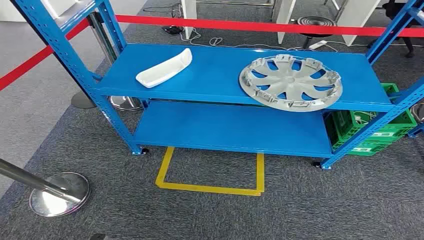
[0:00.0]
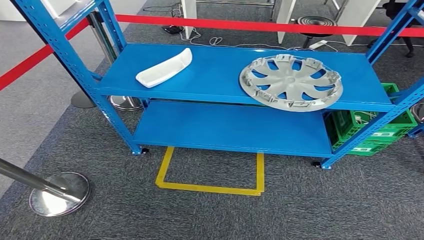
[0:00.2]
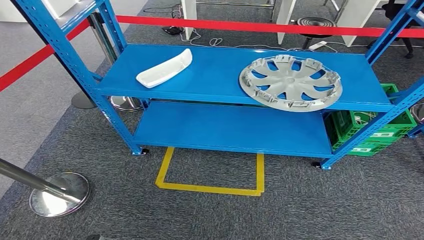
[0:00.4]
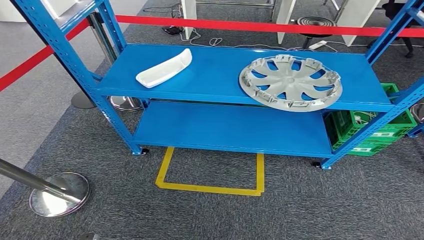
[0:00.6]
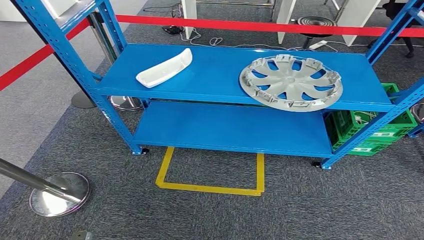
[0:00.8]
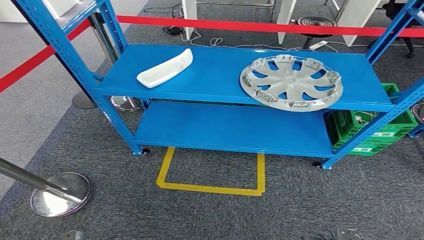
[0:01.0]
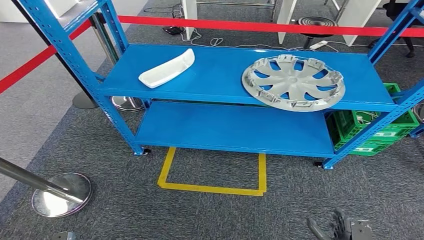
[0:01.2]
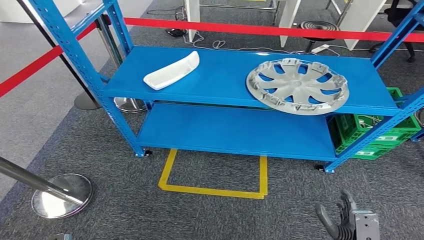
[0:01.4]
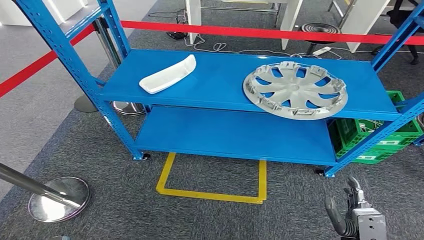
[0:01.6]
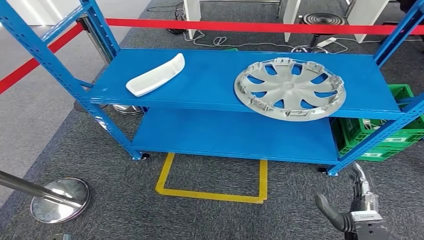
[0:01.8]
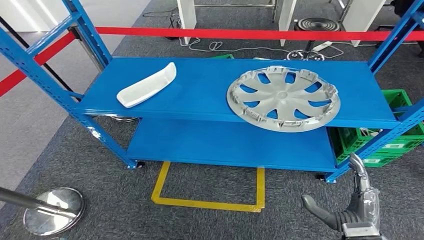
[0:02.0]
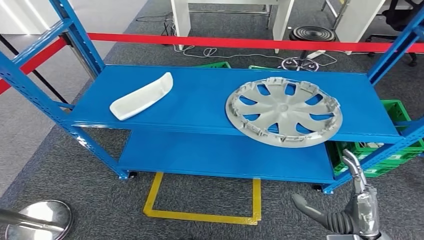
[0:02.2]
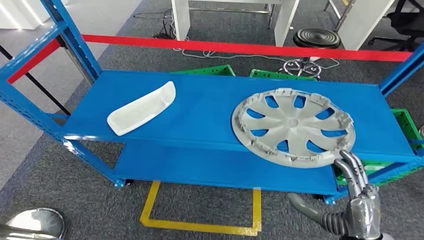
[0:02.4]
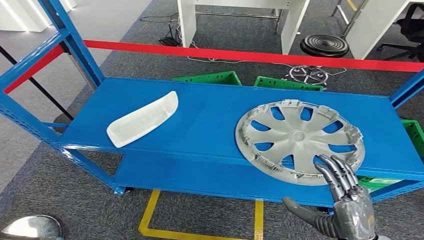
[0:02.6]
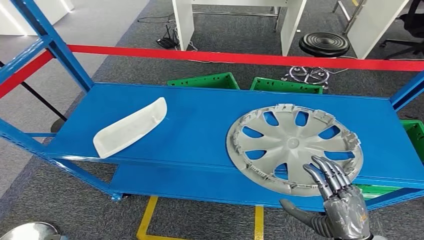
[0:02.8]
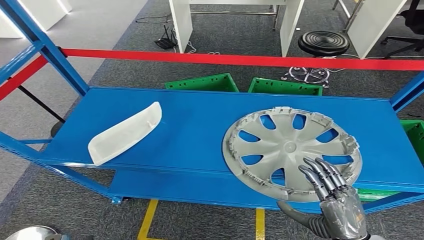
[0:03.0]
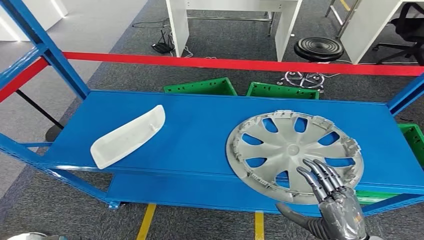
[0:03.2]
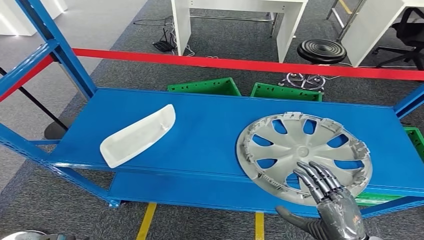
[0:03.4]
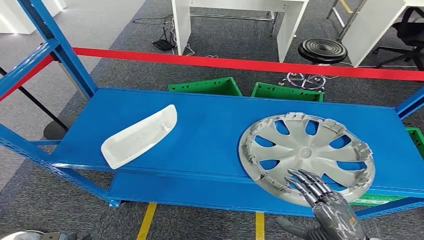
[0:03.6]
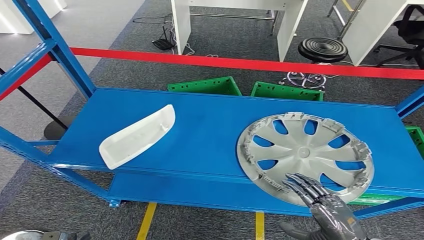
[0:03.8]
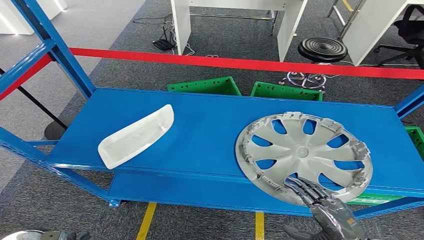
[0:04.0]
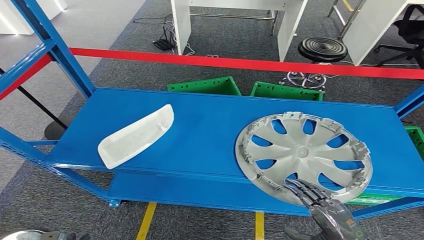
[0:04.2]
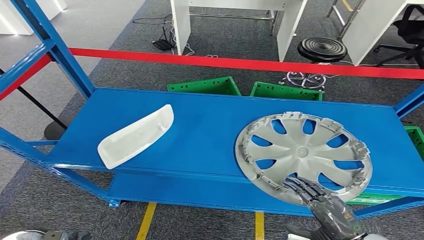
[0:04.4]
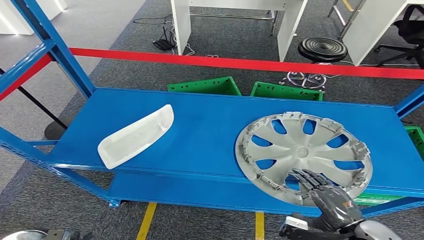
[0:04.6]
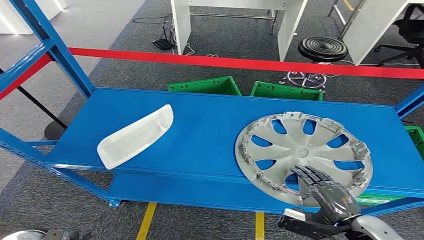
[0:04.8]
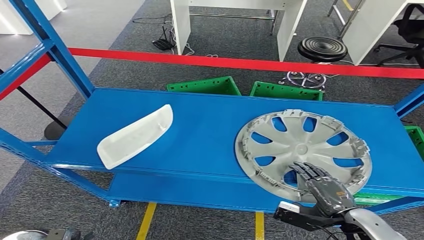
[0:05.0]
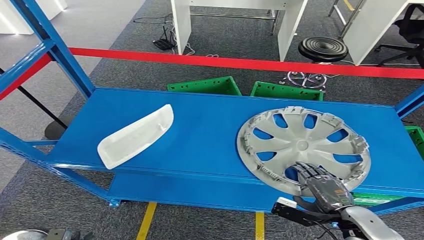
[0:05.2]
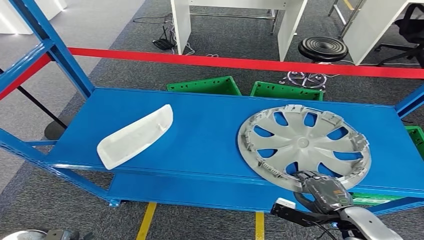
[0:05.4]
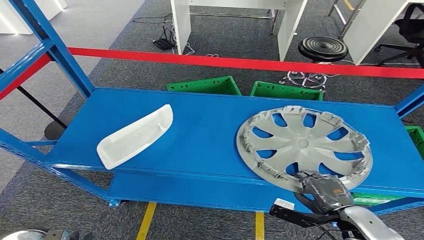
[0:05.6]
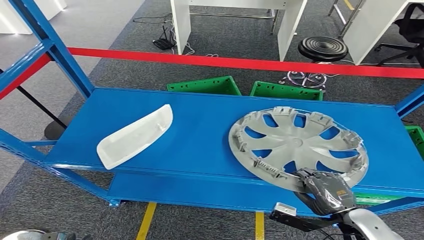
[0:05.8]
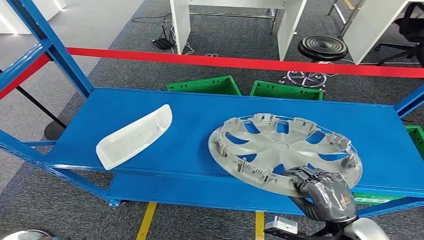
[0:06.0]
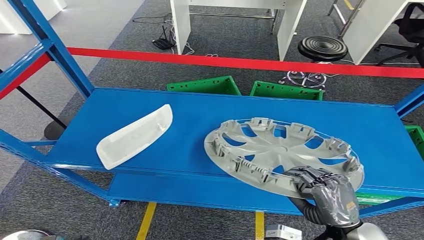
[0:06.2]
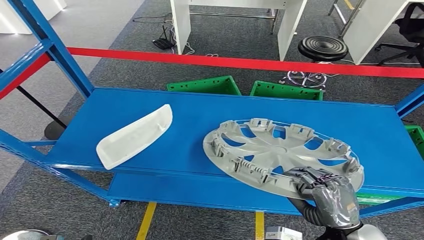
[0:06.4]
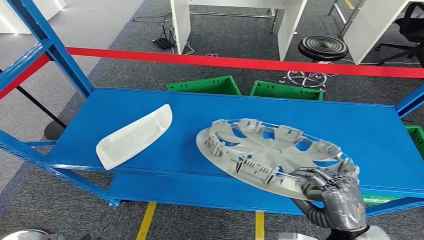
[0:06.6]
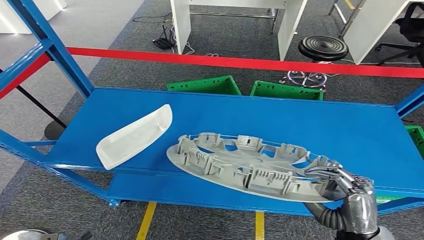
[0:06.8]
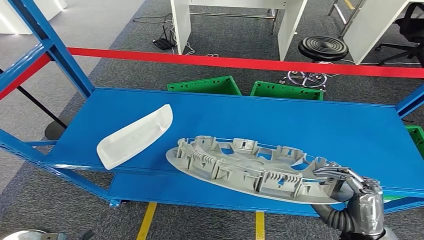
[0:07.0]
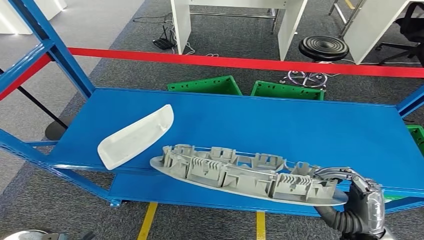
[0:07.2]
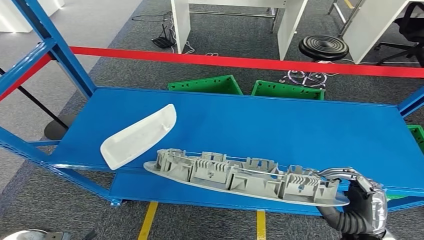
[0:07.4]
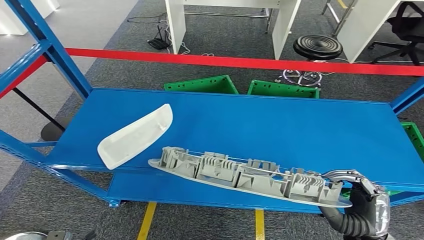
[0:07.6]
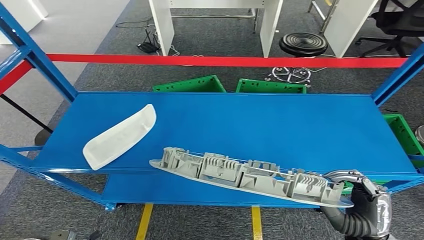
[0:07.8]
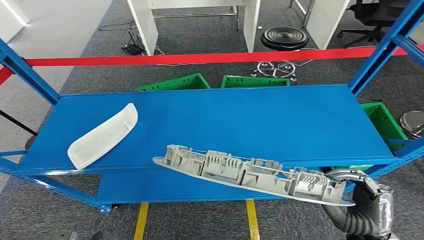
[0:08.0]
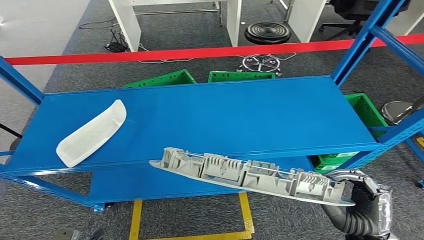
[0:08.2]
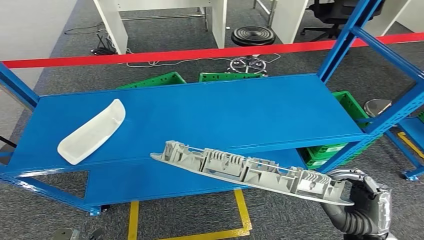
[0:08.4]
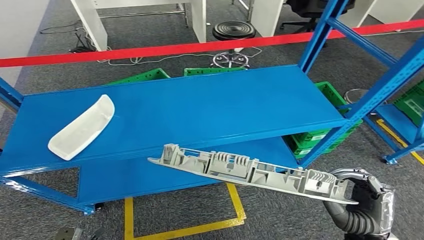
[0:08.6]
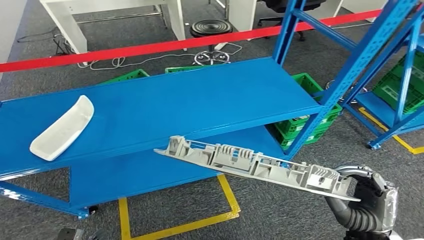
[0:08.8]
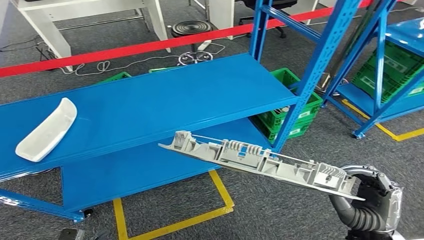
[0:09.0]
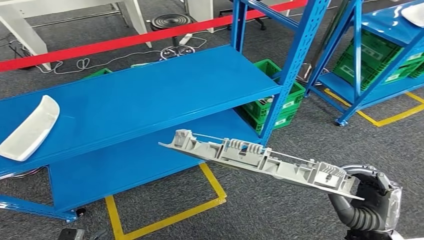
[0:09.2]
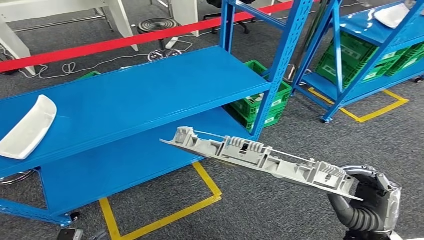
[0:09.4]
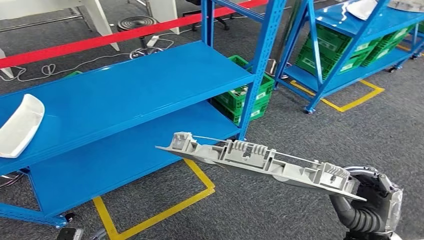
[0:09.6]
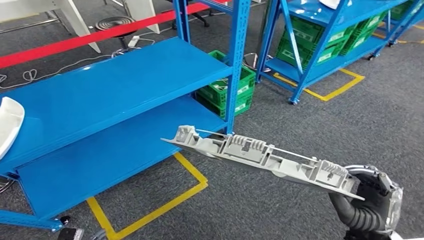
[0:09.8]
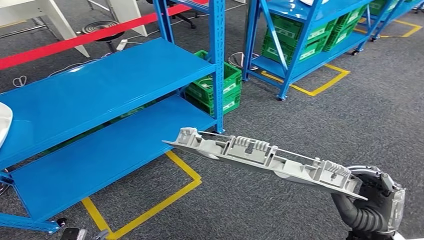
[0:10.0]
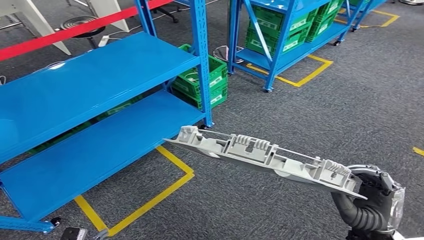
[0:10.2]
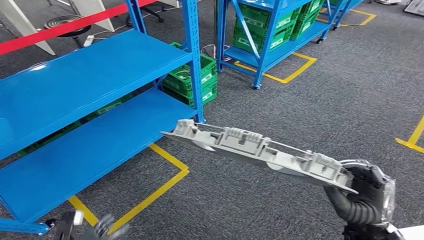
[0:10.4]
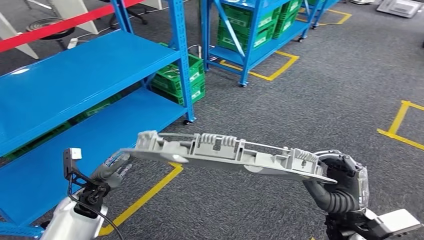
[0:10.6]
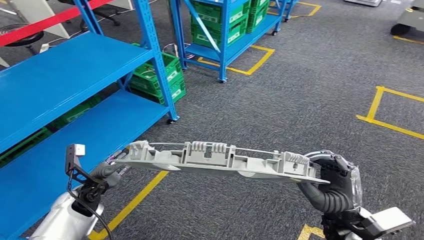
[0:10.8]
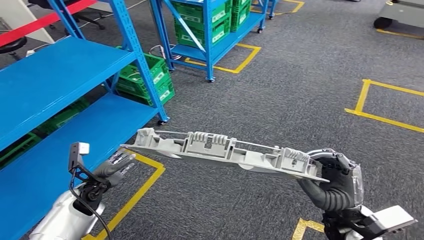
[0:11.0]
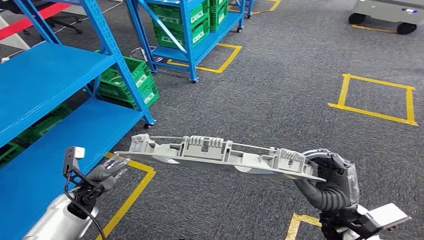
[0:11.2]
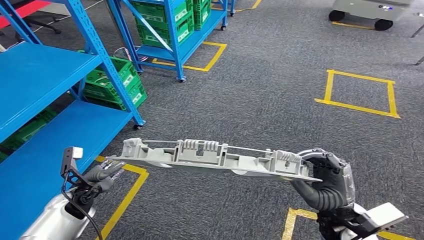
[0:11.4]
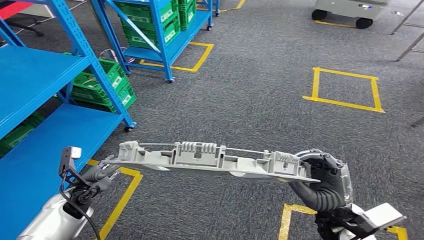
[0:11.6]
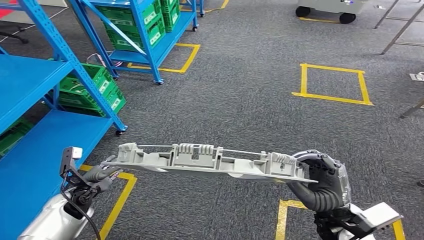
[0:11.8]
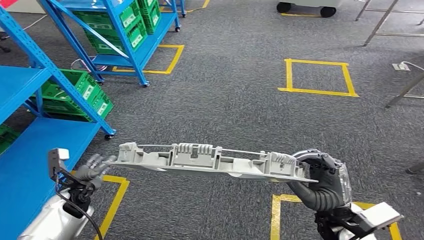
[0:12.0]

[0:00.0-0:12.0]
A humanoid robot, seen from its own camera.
Step, 0:00.0 to 0:08.6: Pick up the small component from the shelf.
0:04.4 to 0:06.0: The right hand moves approximately 5 cm.

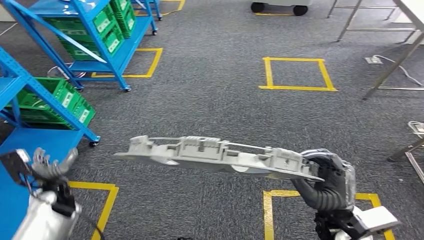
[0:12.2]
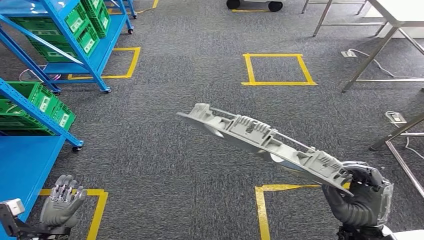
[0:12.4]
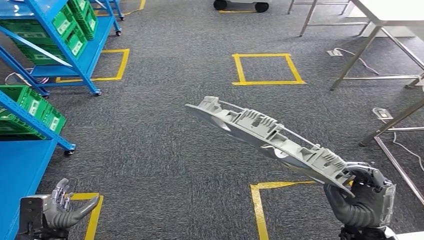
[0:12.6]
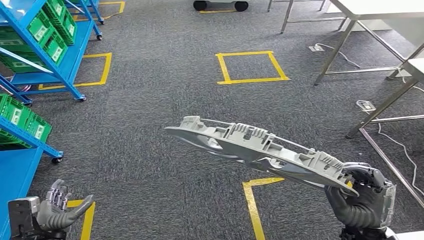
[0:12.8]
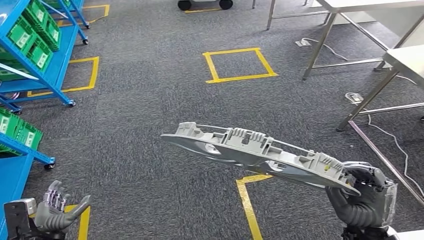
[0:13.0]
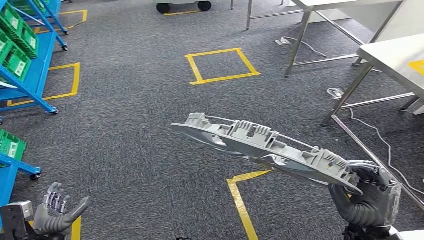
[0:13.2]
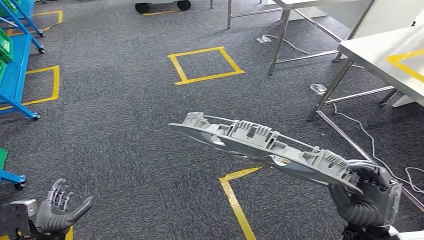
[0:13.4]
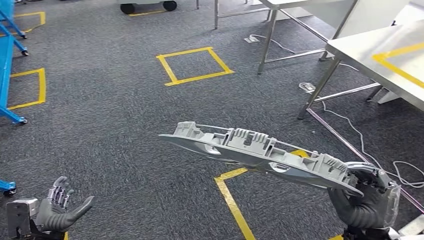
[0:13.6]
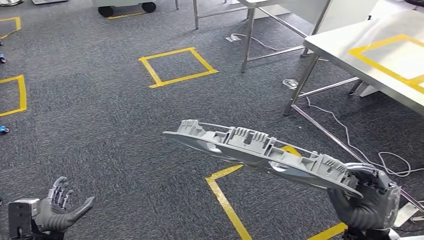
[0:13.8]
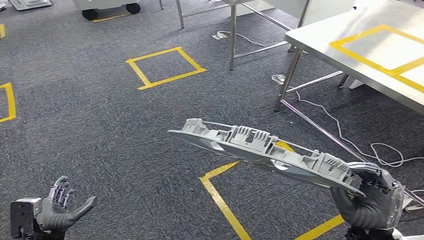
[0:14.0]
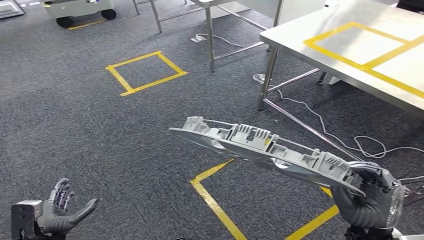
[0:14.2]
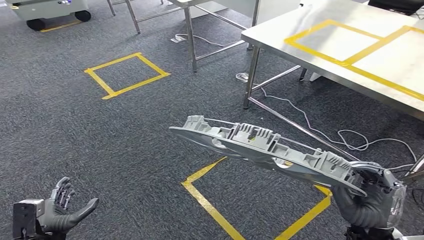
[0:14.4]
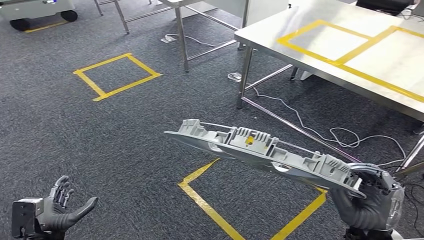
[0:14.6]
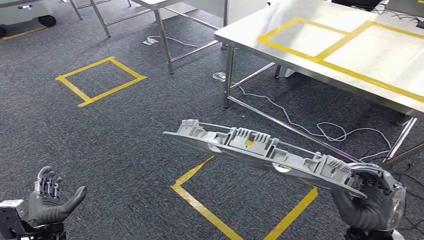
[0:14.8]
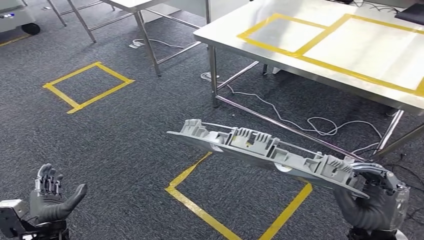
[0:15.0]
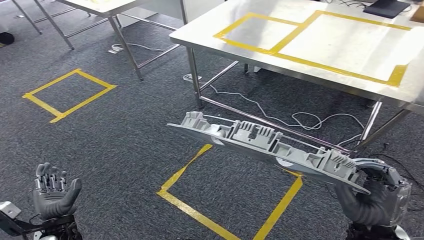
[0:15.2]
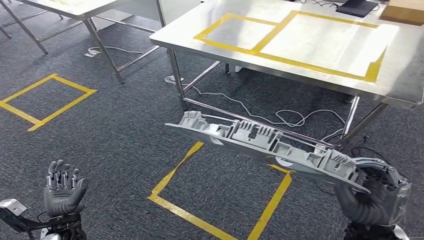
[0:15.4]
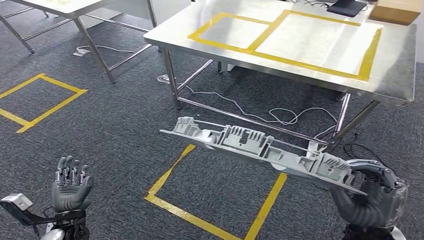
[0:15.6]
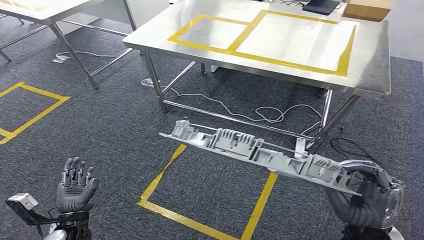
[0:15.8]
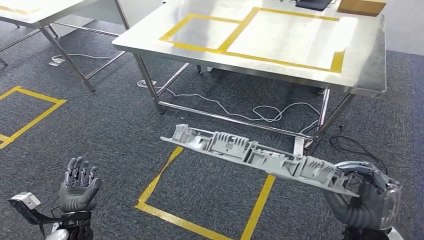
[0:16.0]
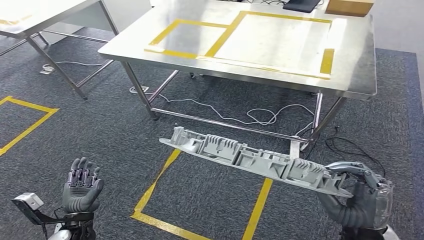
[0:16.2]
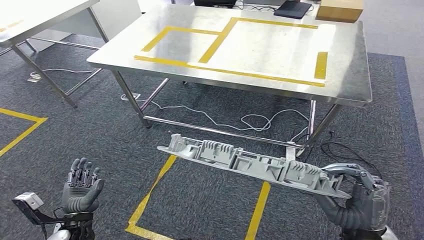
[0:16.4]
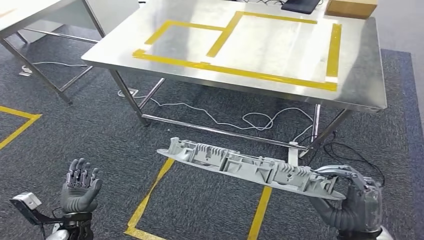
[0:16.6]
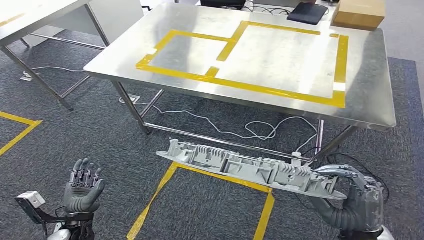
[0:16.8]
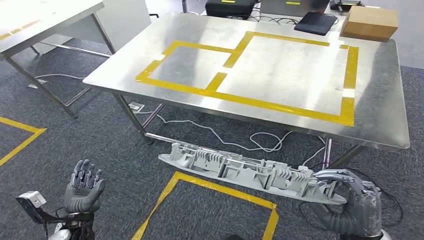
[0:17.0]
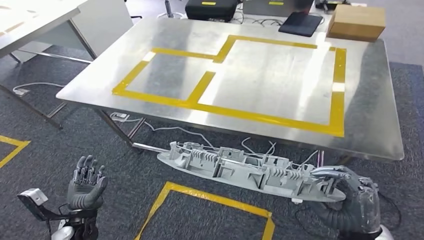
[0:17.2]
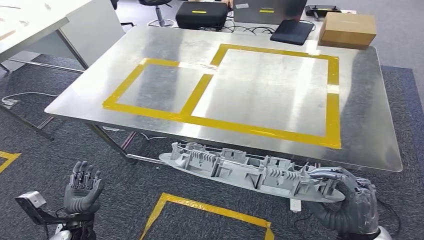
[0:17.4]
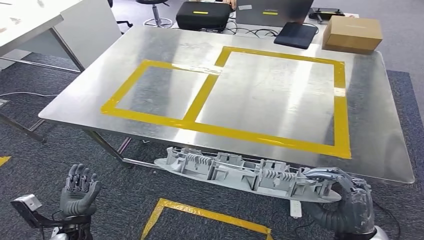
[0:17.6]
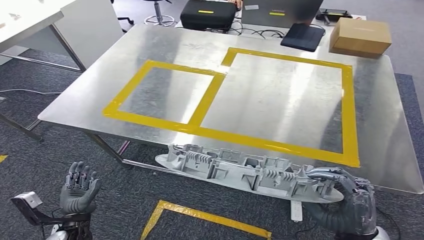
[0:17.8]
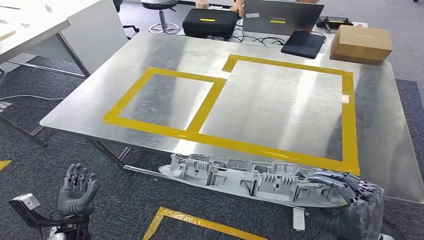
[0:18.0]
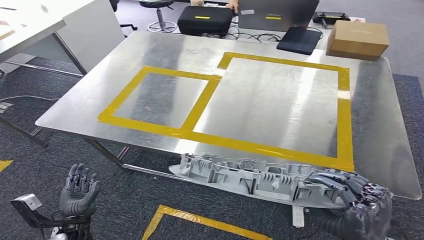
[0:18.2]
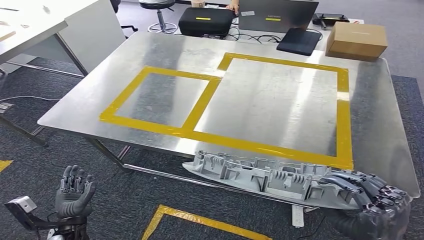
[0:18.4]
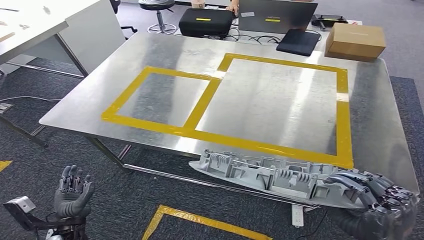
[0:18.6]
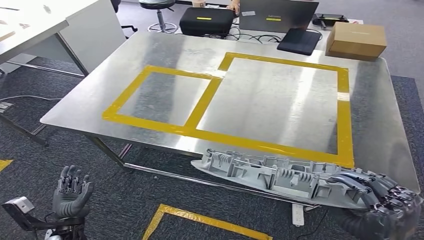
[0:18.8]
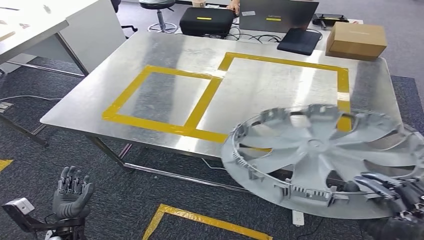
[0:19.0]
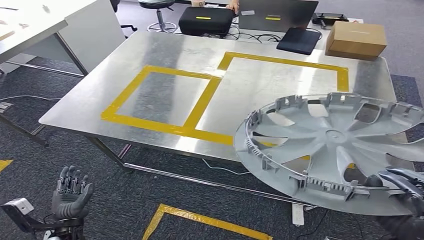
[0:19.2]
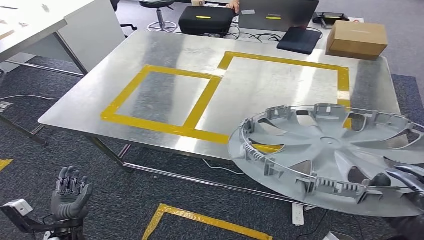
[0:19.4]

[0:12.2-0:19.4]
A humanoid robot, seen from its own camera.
Step, 0:12.2 to 0:18.6: Move the small component to the workbench.
